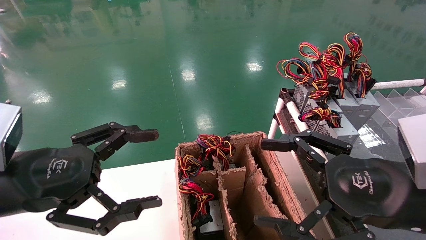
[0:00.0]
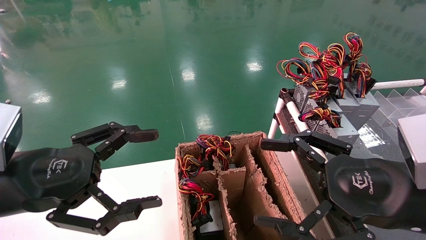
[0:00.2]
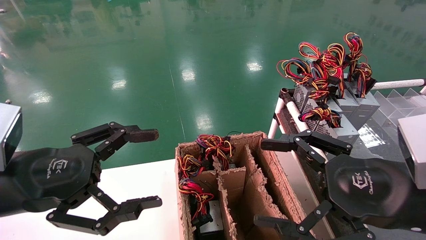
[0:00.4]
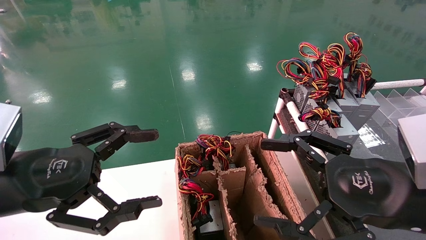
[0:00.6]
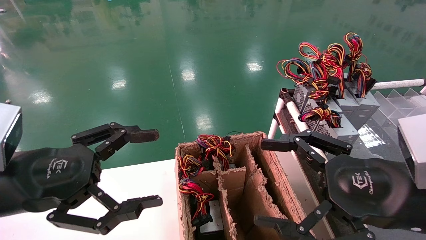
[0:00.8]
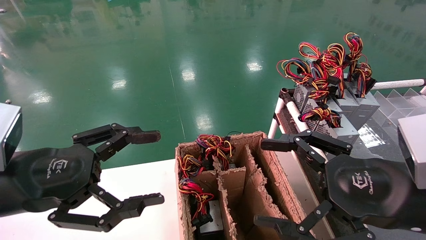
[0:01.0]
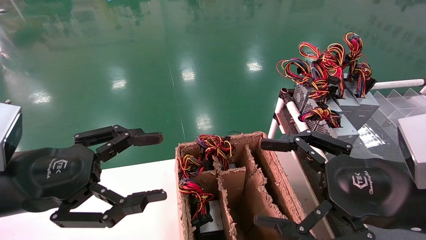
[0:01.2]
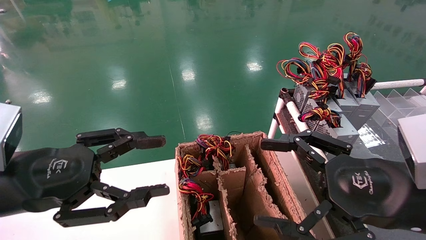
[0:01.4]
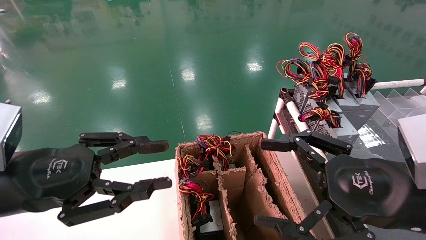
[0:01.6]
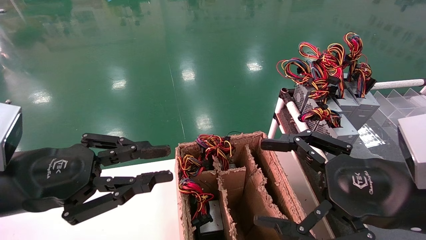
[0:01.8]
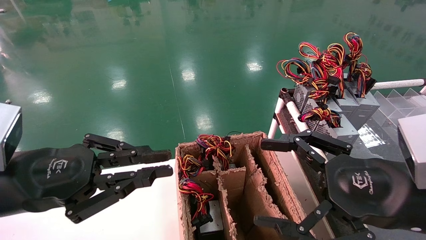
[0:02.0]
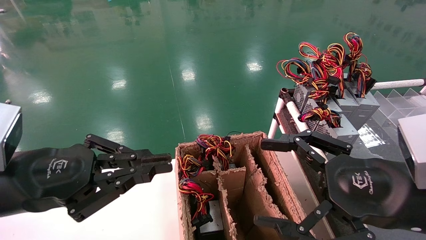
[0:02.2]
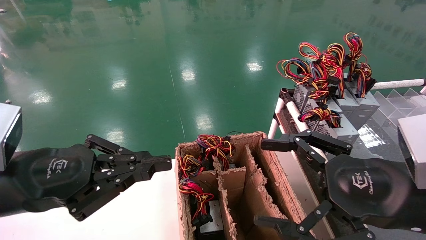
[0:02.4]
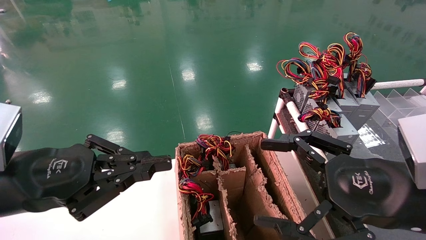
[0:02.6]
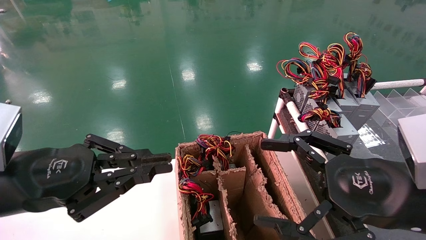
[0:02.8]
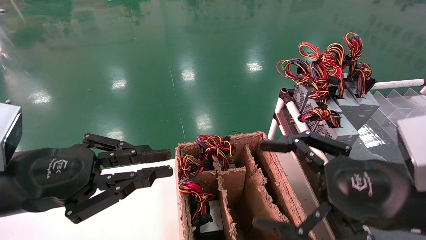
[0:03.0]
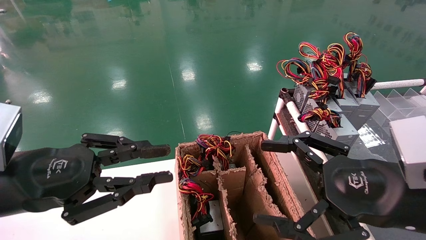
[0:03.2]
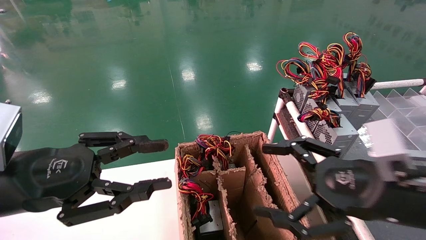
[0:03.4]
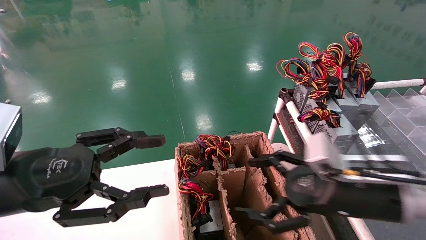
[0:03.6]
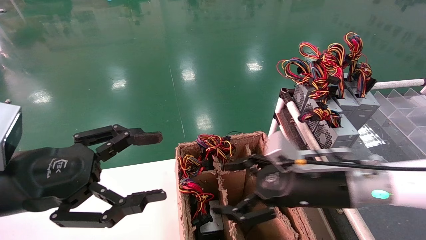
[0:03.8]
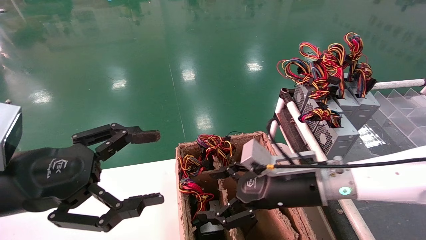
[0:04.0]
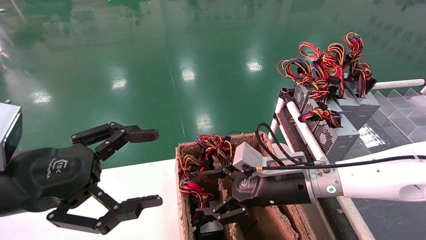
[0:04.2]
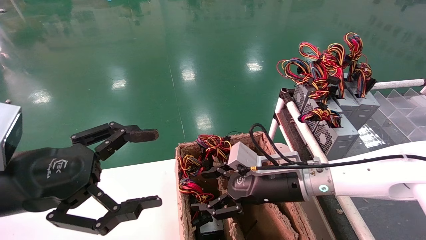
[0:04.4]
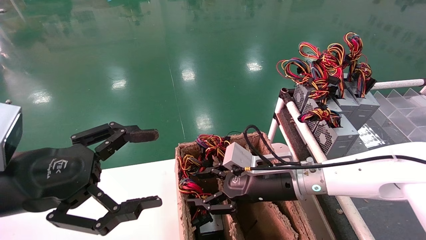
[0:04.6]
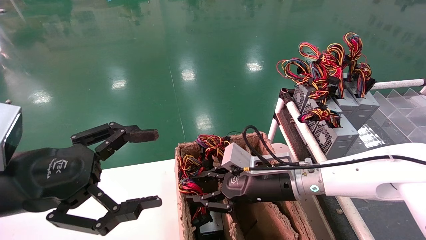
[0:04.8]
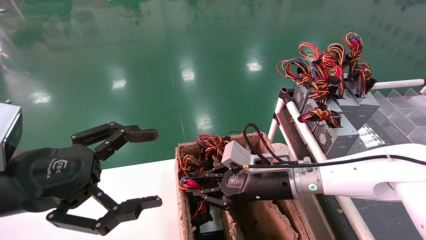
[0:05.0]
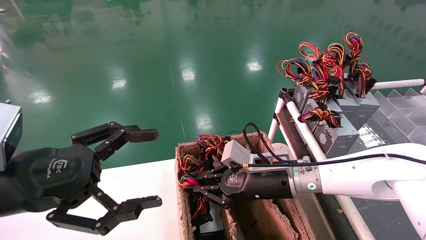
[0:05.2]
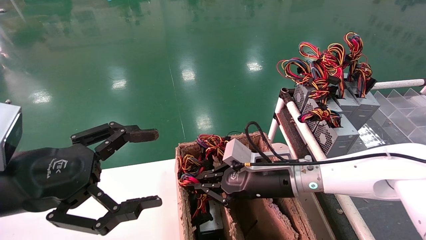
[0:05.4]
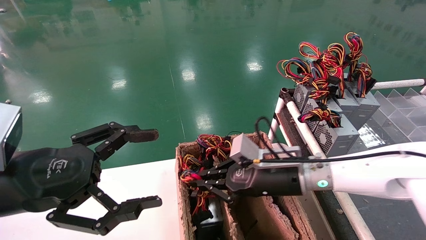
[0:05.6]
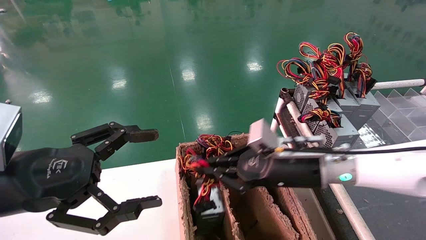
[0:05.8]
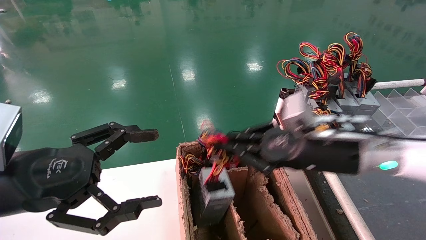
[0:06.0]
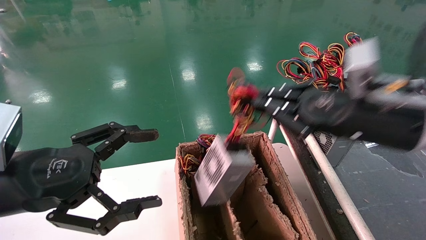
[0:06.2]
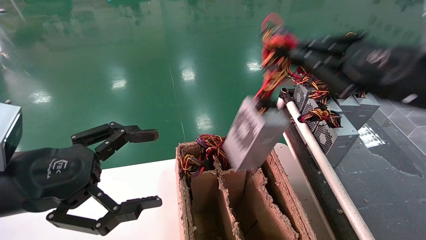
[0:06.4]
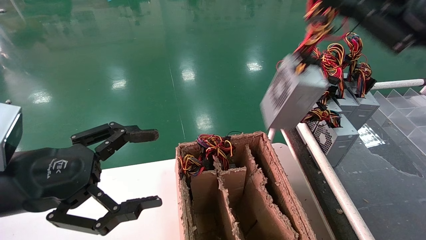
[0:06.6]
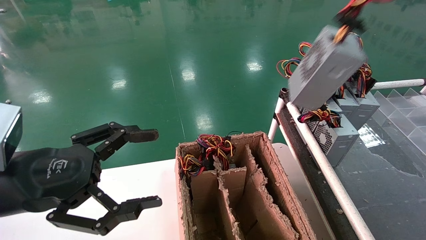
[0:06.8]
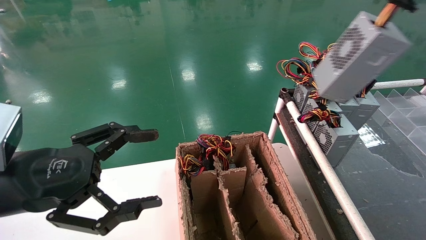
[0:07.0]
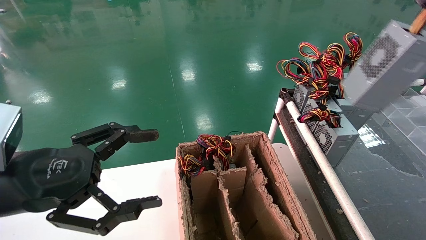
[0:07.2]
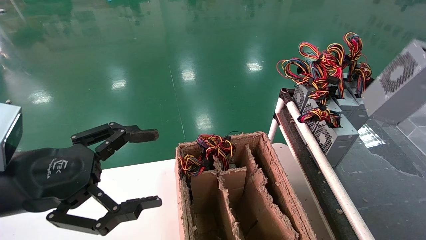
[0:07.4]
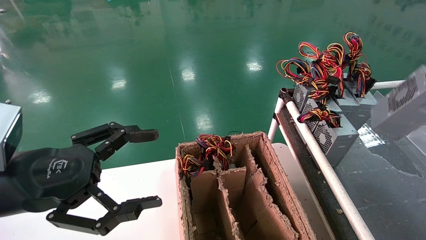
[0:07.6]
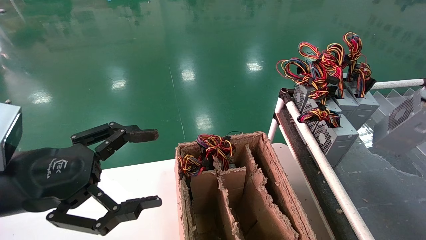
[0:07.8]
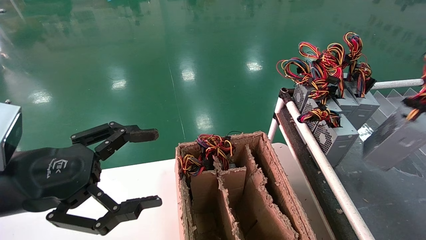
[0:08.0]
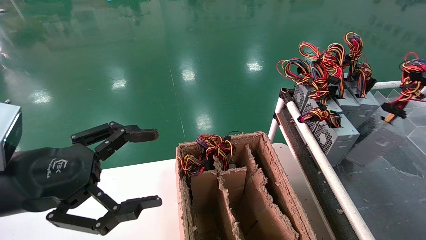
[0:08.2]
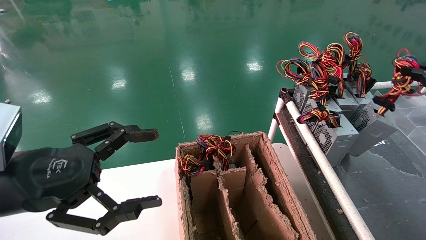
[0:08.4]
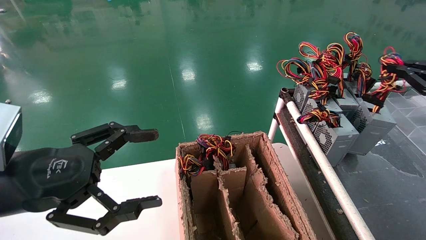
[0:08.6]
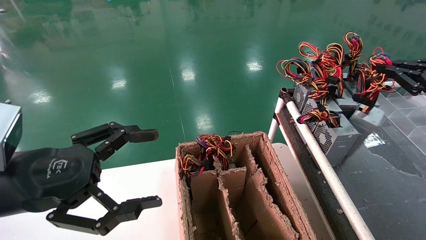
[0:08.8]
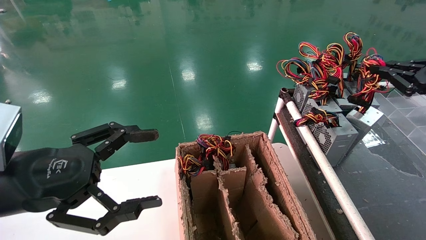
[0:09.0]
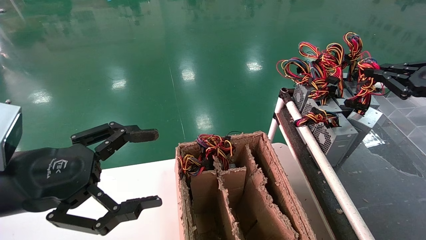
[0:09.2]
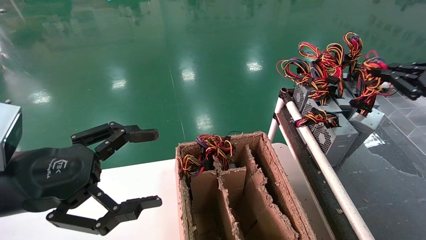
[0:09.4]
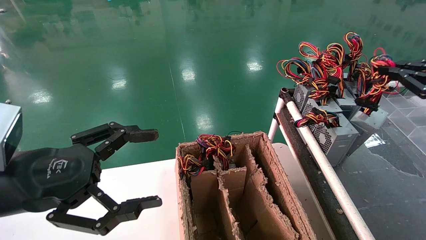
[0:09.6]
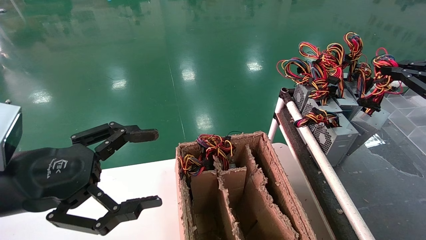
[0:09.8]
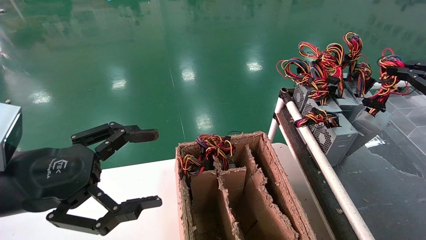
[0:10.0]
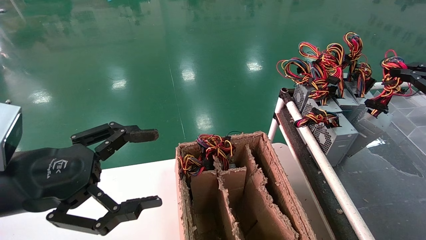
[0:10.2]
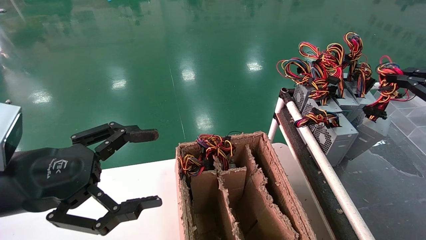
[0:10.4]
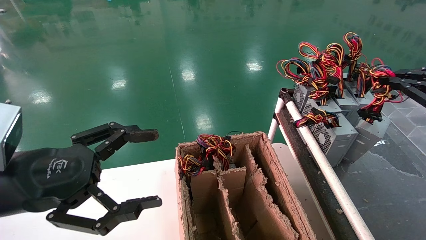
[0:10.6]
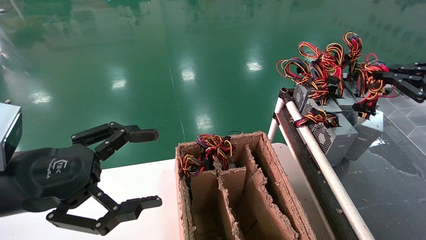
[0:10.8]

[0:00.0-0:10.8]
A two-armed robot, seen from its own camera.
Step, 0:02.4 to 0:05.4: Grab and lift the power supply from the large box.
0:00.0 to 0:01.6: The left gripper closes.
0:01.6 to 0:03.0: The left gripper closes up.
0:03.0 to 0:04.6: The right gripper heads forward, to the left and downward, covering approximately 20 cm. Meanwhile the left gripper opens up.
0:04.6 to 0:06.2: The right gripper moves upward, to the right and backward, roughly 20 cm, and closes up.
0:06.2 to 0:07.8: The right gripper travels to the right by roughly 25 cm.
0:07.8 to 0:09.2: The right gripper goes some 10 cm forward and to the left.
0:09.2 to 0:10.8: There are only small adjustments of the grippers.

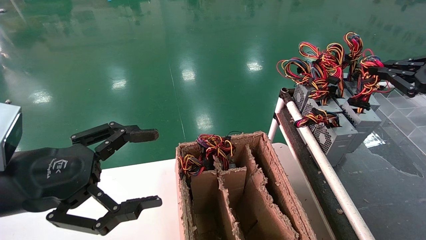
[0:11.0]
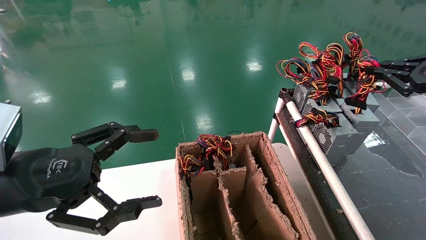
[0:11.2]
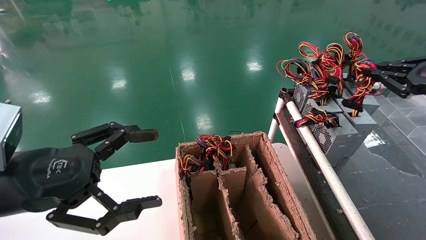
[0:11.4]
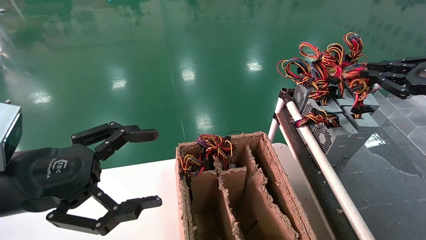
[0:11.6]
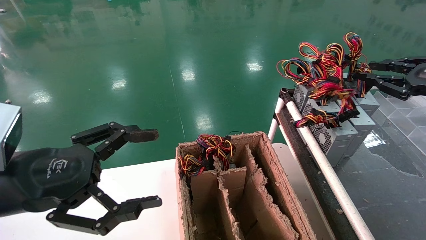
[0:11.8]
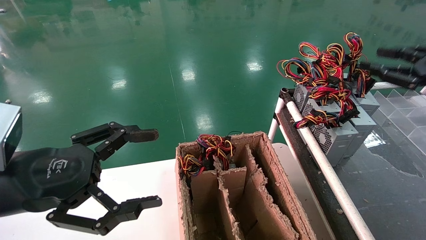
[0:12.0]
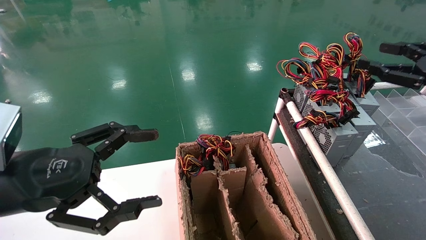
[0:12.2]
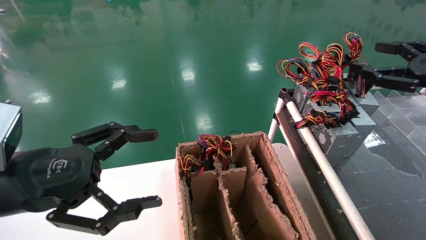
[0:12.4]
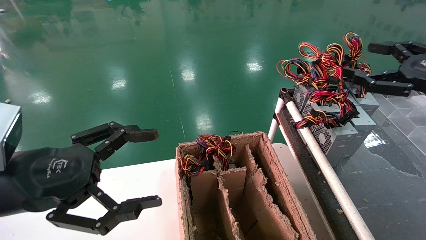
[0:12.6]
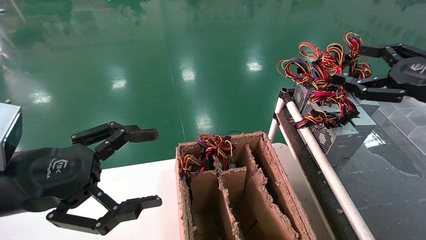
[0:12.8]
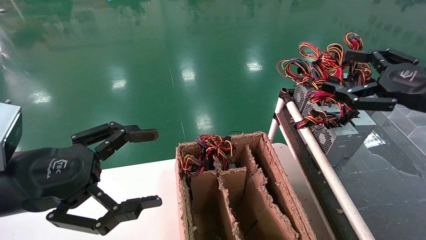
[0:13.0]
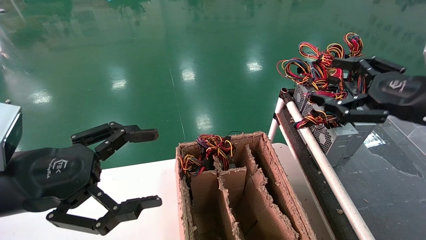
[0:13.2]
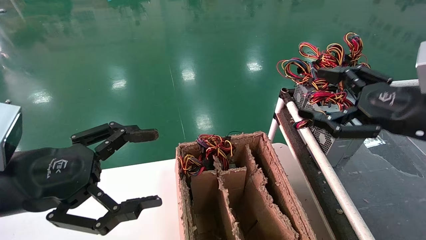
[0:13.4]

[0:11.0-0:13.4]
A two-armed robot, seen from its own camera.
0:11.0 to 0:12.2: The right gripper opens up.
0:12.2 to 0:13.4: The right gripper heads to the left, covering some 10 cm, and opens.

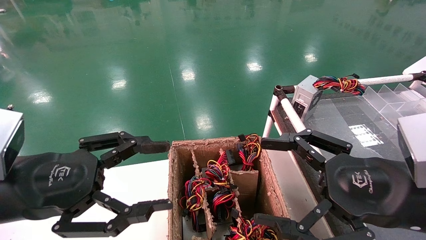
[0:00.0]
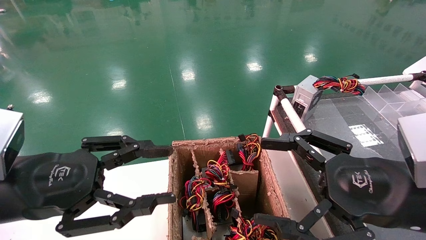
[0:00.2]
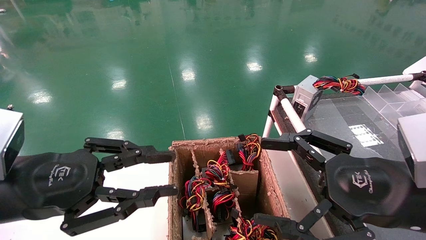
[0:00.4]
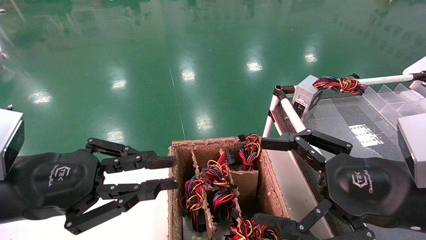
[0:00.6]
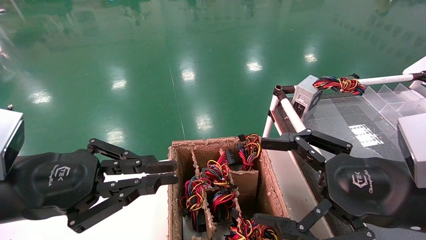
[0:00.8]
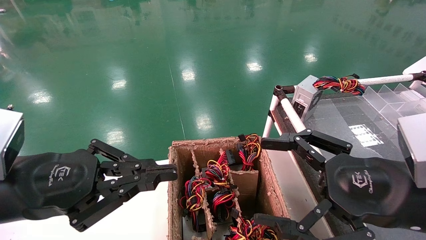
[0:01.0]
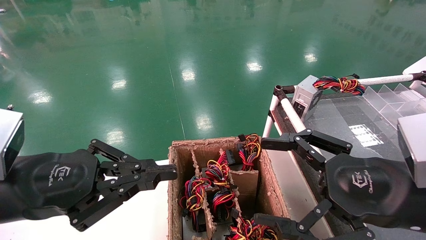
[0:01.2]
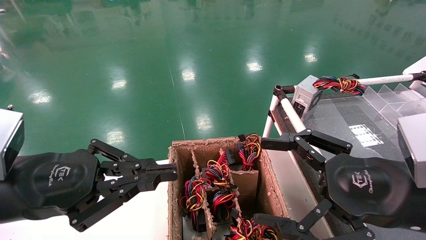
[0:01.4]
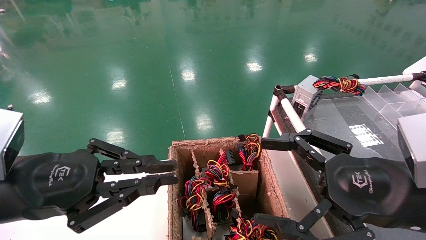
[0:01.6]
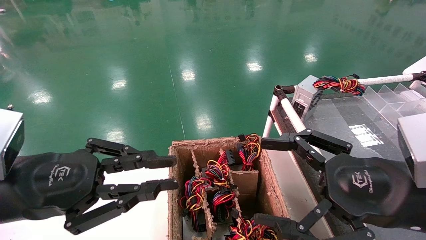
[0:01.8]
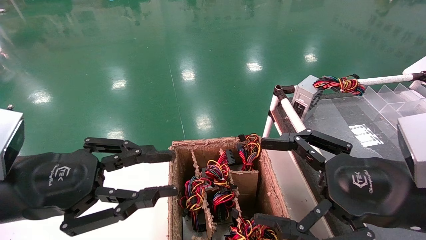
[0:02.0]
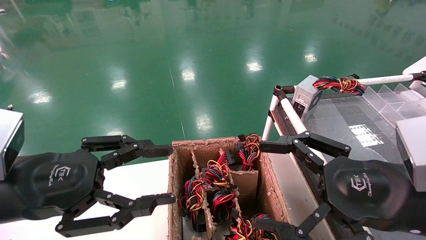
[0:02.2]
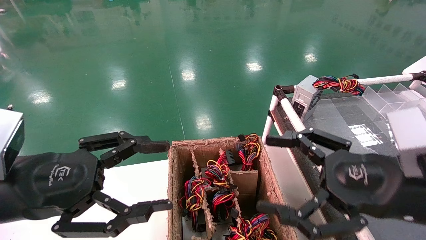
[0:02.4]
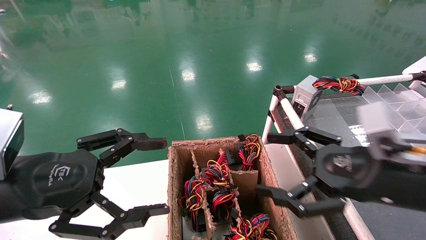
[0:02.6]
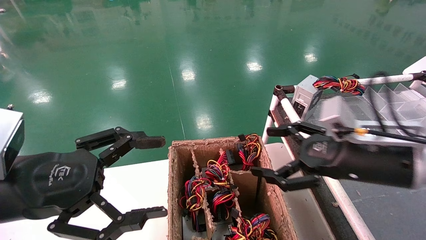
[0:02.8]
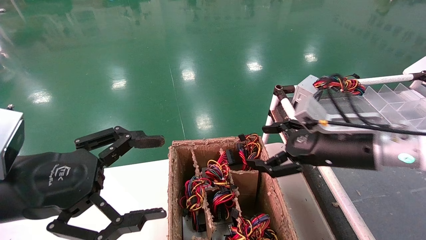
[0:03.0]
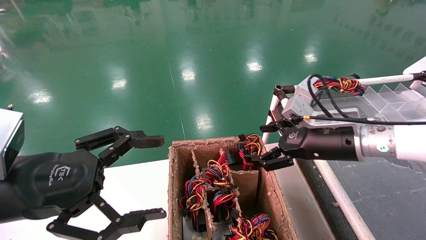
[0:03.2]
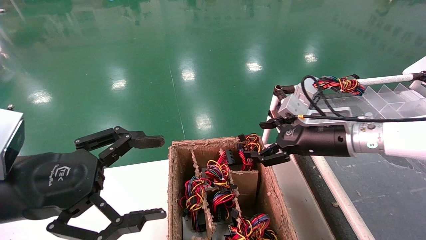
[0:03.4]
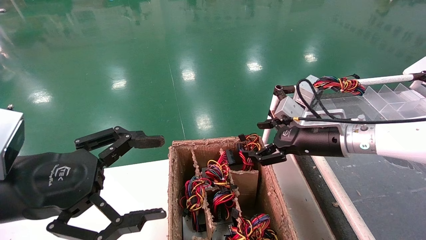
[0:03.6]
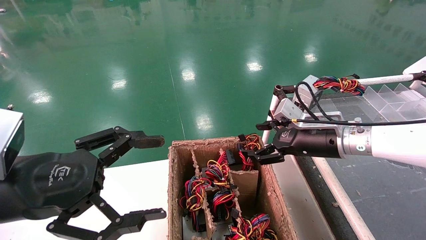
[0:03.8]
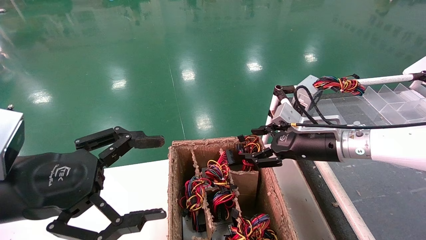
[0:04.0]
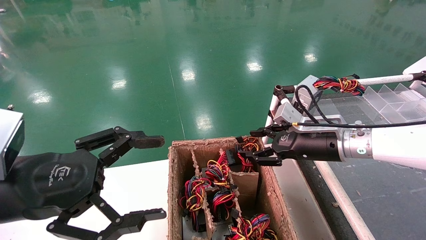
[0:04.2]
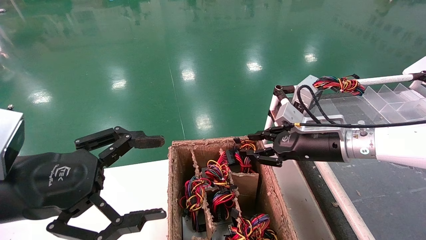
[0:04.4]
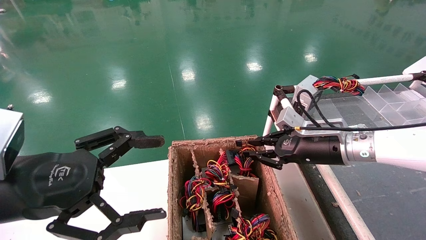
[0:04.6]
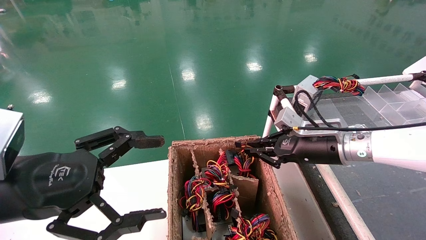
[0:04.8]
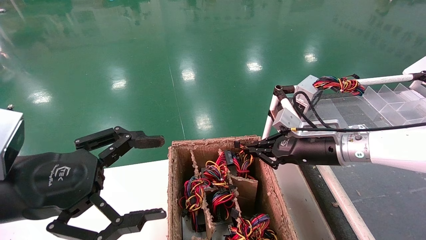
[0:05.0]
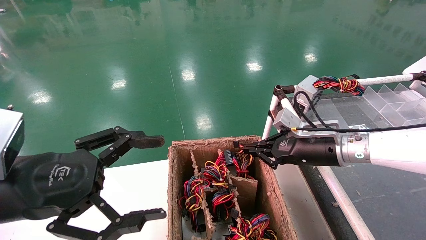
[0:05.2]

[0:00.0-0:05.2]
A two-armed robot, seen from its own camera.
Step, 0:01.2 to 0:05.0: Grab and lift the power supply from the large box.
0:00.0 to 0:01.8: The left gripper closes its fingers.
0:01.8 to 0:03.4: The left gripper opens its fingers, while the right gripper moves forward, some 20 cm.
0:03.4 to 0:05.2: The right gripper closes up.
